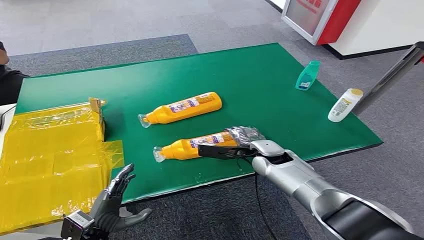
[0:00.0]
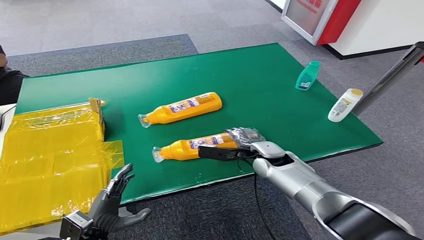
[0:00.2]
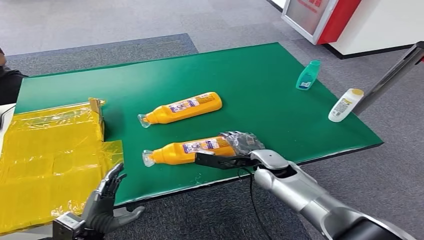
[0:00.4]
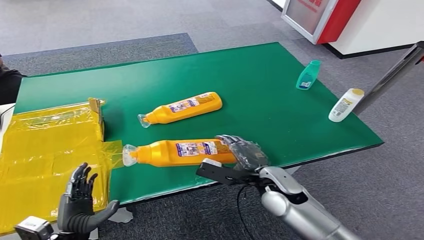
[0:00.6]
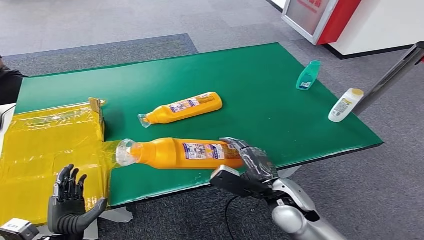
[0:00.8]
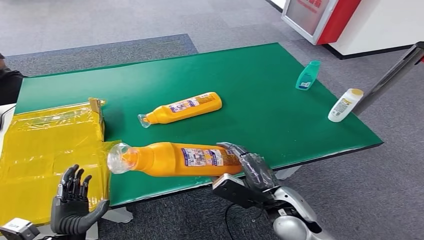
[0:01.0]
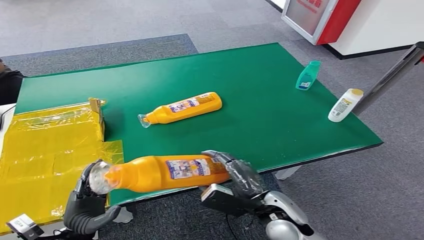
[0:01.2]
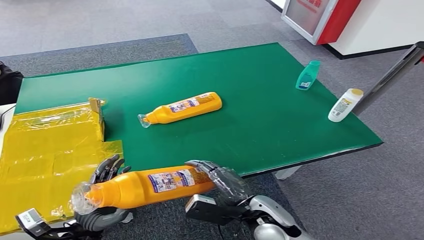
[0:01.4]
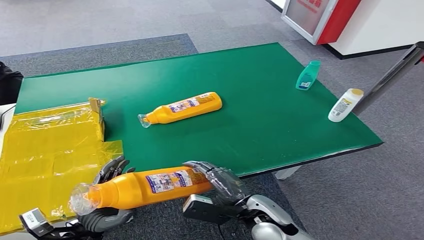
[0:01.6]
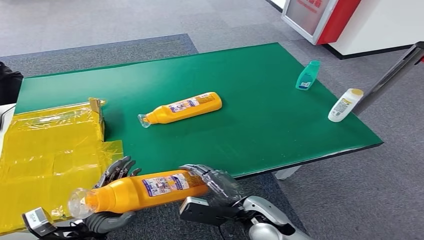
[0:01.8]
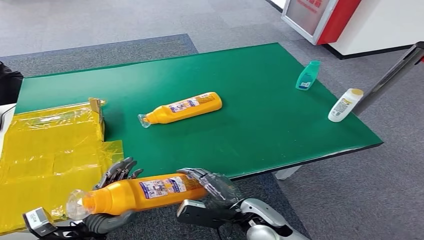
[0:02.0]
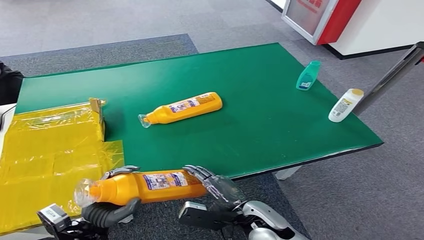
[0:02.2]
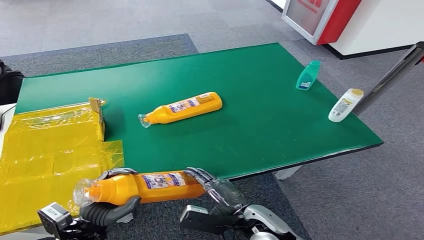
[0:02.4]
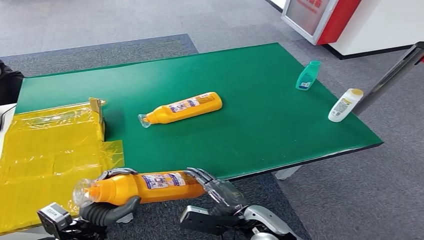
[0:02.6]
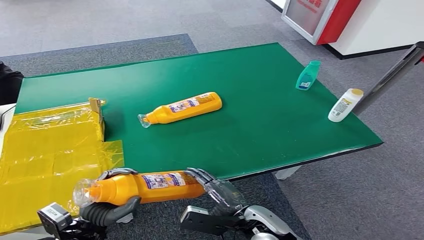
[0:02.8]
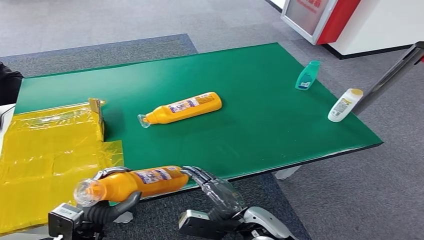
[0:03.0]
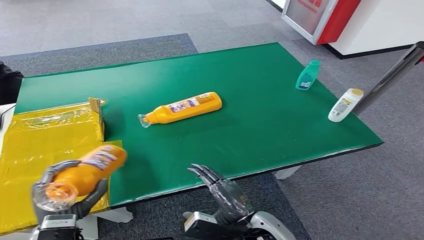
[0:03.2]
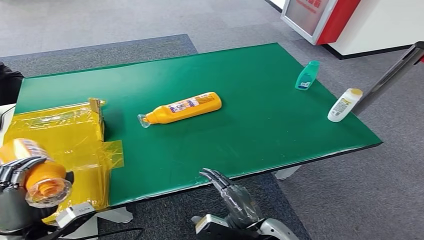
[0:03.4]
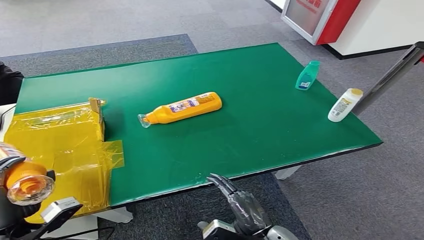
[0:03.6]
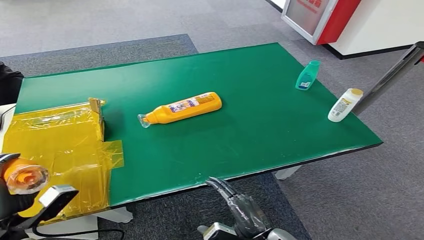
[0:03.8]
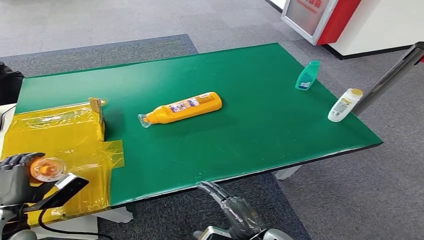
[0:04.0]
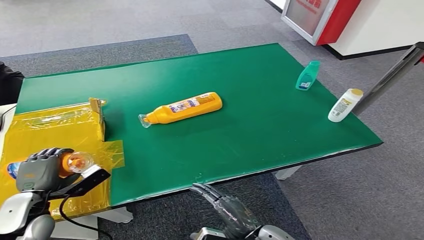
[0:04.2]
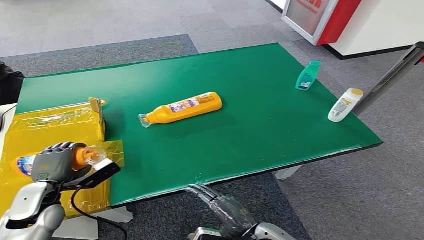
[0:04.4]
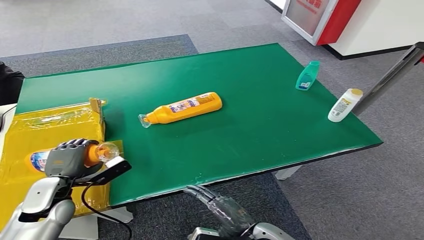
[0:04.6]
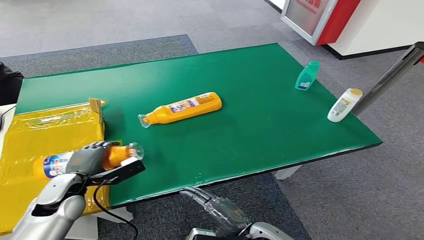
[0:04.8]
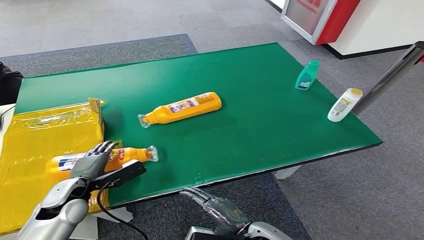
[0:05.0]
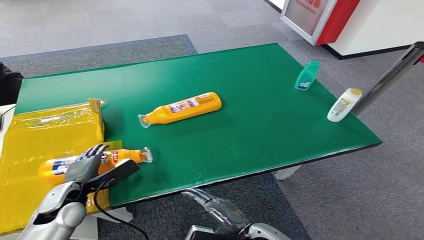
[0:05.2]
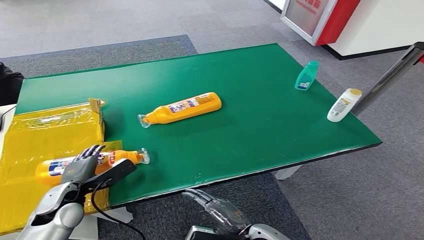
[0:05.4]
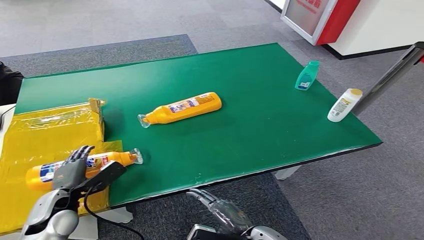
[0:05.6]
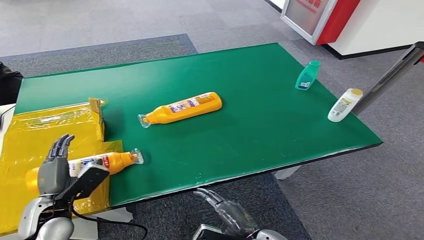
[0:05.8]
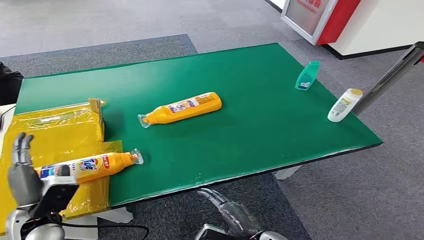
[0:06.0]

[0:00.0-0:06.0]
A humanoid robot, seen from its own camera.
Step, 0:00.0 to 0:01.8: Pick up the bottle from the table.
Step, 0:02.0 to 0:05.8: Turn the bottle to the front side.
0:03.0 to 0:04.4: The left hand shifts some 15 cm forward and to the left.
0:04.4 to 0:06.0: The left hand shifts some 5 cm backward.
